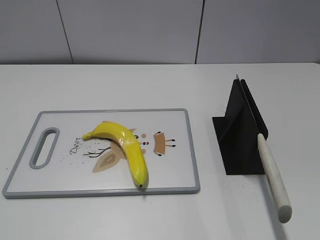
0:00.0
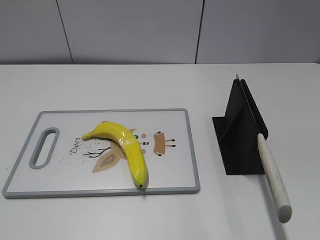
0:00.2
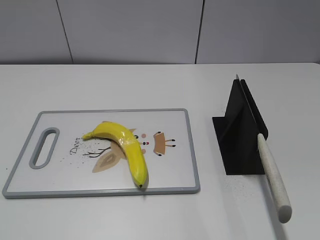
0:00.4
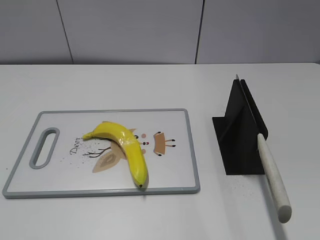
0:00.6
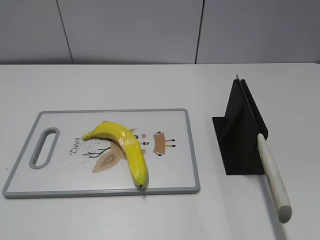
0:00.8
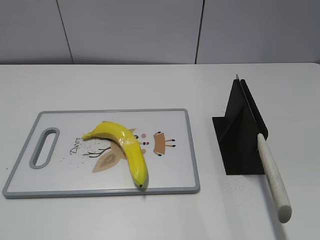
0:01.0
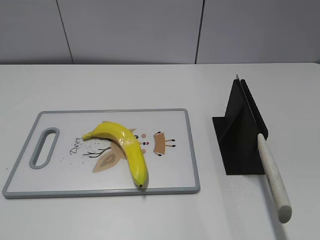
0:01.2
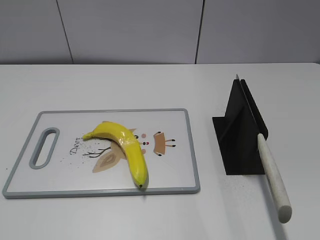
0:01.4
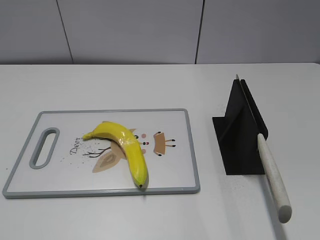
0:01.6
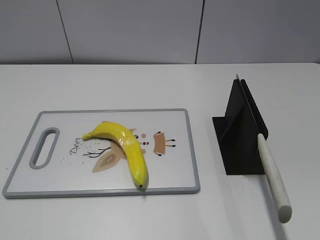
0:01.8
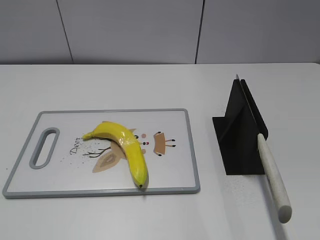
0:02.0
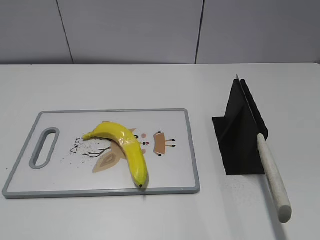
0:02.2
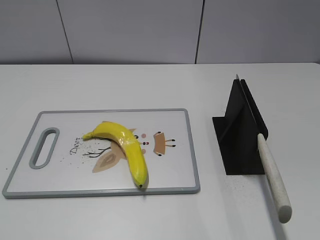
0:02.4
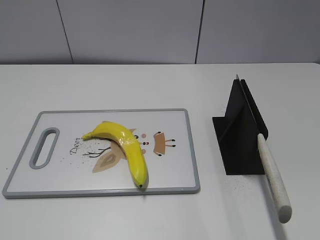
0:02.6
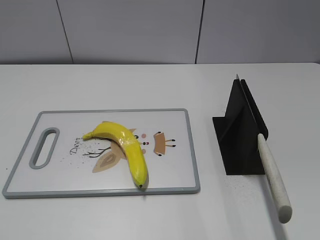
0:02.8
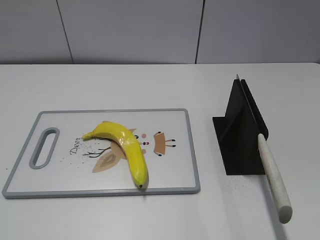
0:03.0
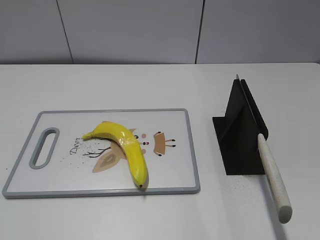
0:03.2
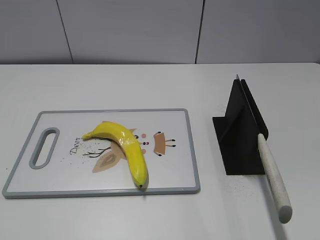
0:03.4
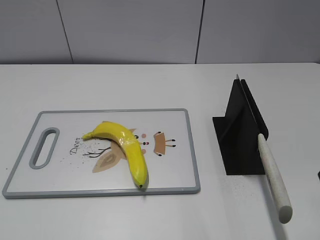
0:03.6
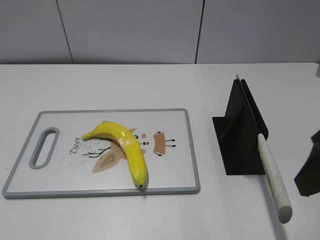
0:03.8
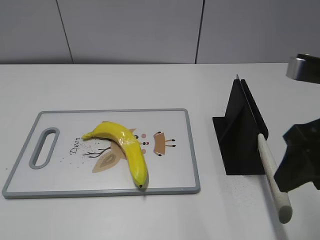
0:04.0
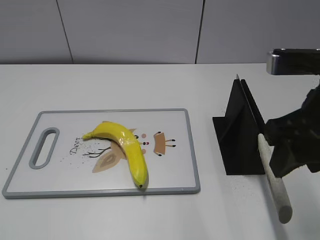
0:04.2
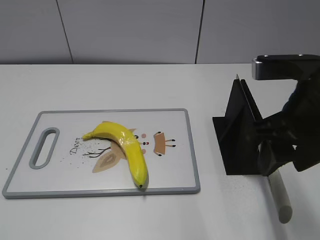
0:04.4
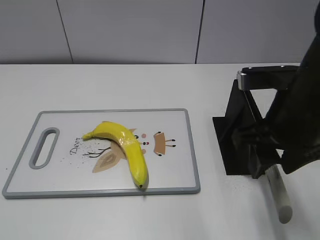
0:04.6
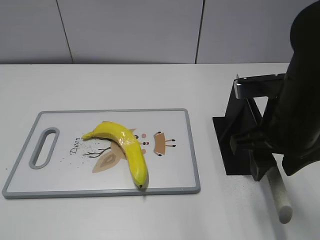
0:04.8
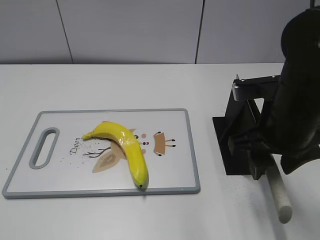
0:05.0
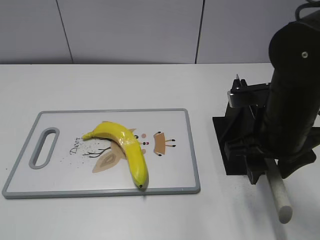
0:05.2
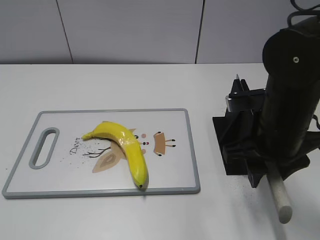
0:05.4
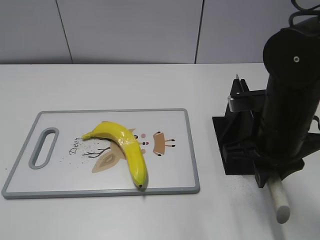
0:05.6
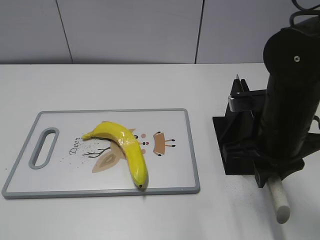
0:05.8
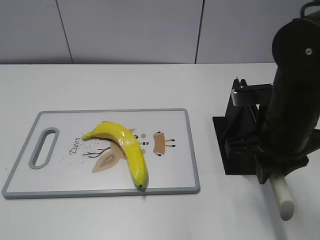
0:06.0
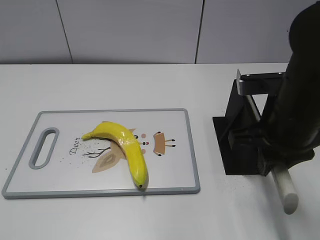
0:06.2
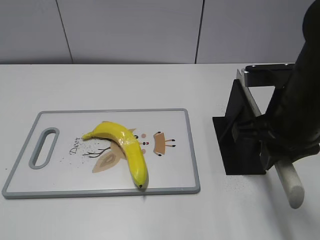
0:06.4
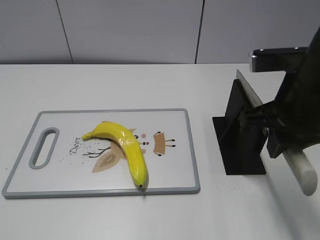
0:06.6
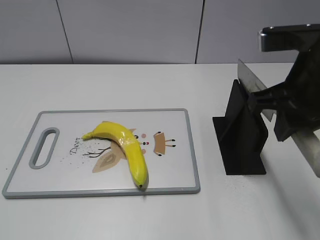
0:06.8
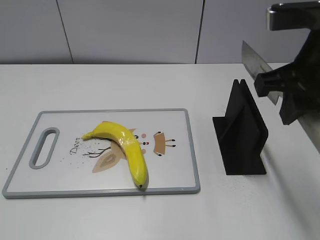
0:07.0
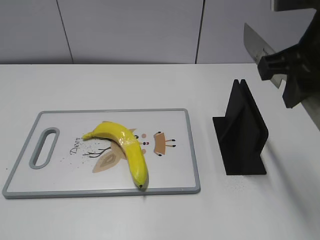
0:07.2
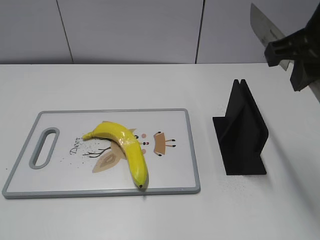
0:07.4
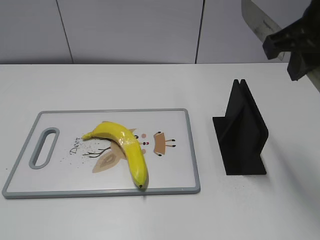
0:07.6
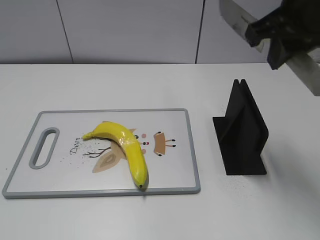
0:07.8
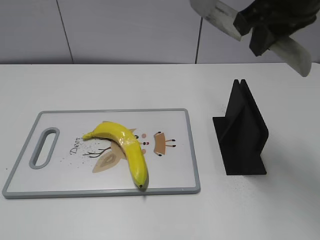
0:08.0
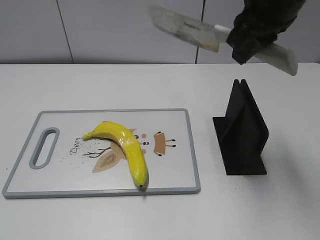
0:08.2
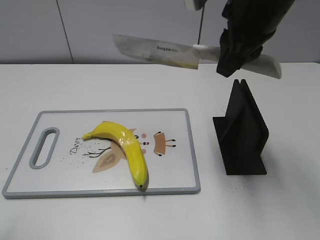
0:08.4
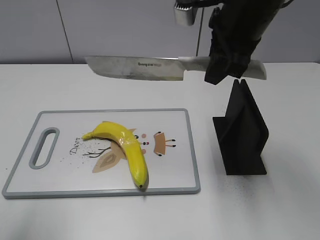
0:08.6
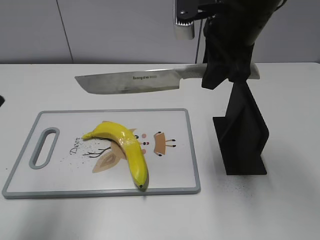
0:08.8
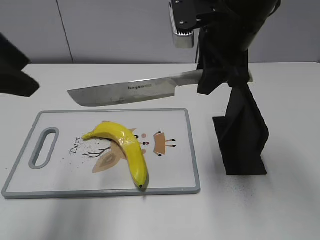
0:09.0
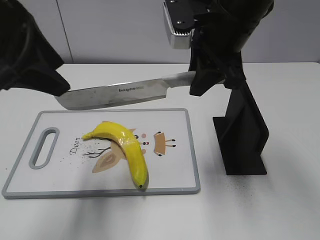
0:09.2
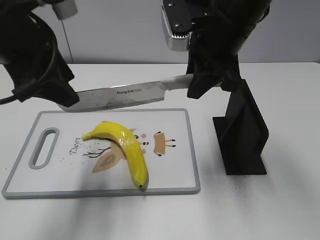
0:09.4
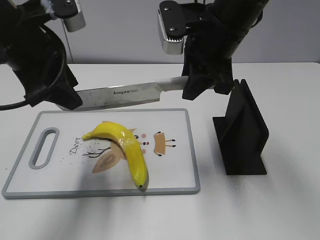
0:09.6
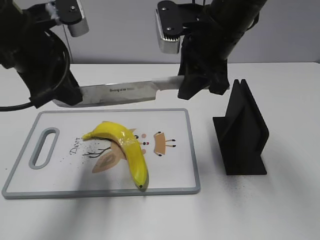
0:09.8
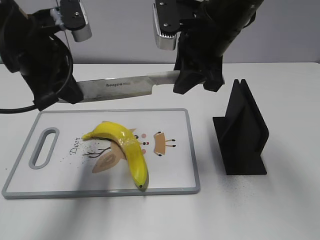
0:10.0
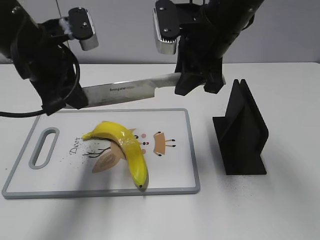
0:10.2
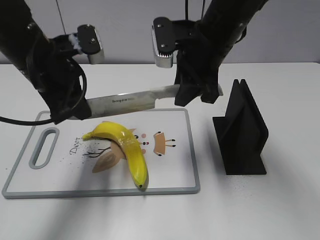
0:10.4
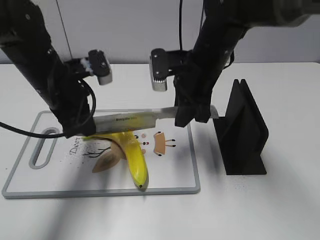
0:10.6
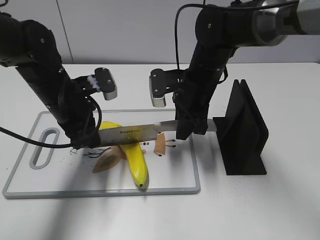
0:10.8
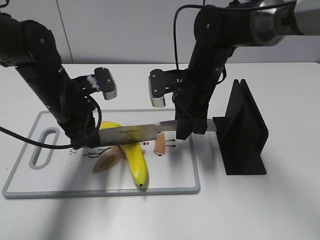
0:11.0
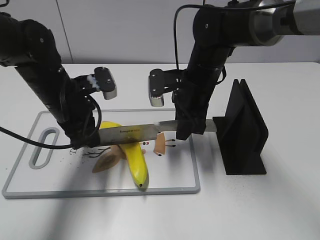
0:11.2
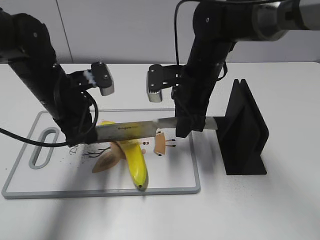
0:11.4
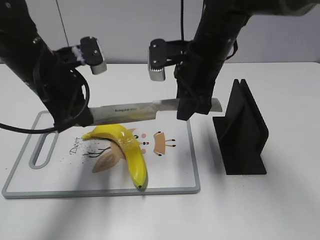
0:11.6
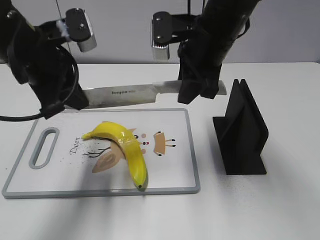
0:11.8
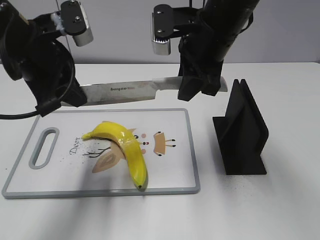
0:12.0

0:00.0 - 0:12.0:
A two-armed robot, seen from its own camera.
Task of the whole recording: cut plastic banana.
Step, 0:00.0 - 0:07.2: Grab the knife handle with your right hand.
0:03.0 - 0:04.4: The right gripper goes approximately 15 cm forward and to the left.
0:04.4 - 0:06.0: The right gripper goes about 5 cm downward, and closes.
0:06.0 - 0:07.6: The right gripper heads upward, covering some 15 cm.
0:07.6 - 0:09.0: The right gripper travels forward and to the left by approximately 10 cm. Meanwhile the left gripper travels forward by some 20 cm.
0:09.0 - 0:10.4: The right gripper ends up roughly 5 cm from where it was; the left gripper goes roughly 15 cm downward, forward and to the right, and closes up.
0:10.4 - 0:12.0: The left gripper travels downward and back again, some 10 cm each way. The right gripper reaches approximately 10 cm downward, then returns.

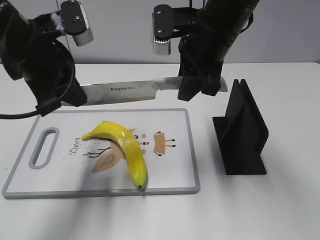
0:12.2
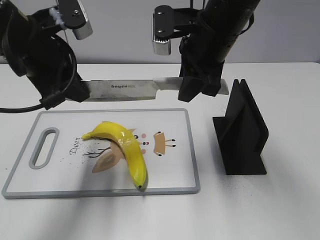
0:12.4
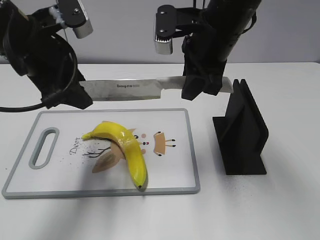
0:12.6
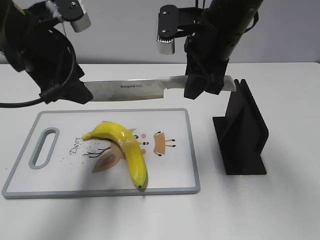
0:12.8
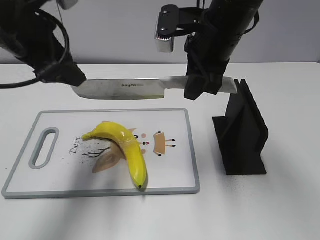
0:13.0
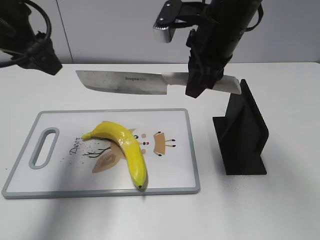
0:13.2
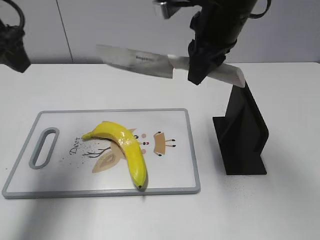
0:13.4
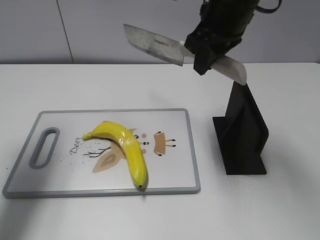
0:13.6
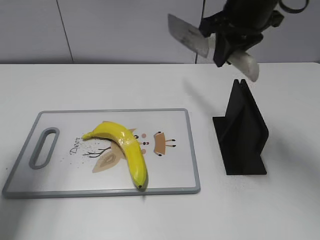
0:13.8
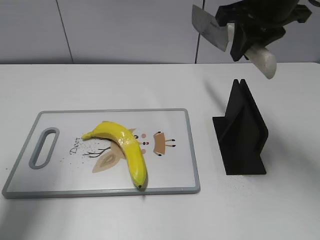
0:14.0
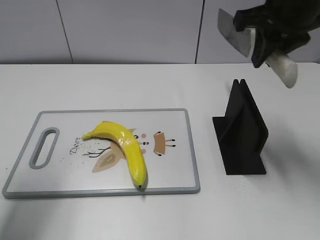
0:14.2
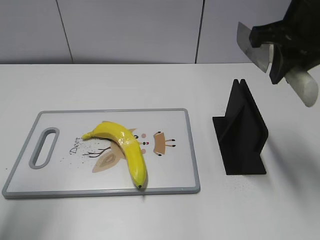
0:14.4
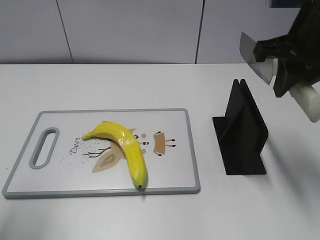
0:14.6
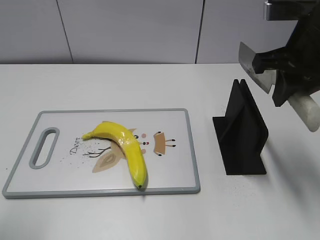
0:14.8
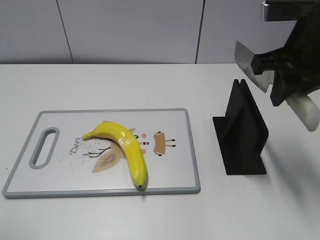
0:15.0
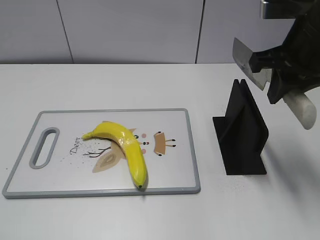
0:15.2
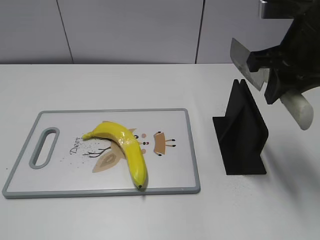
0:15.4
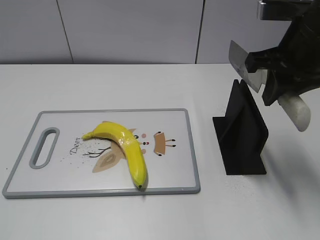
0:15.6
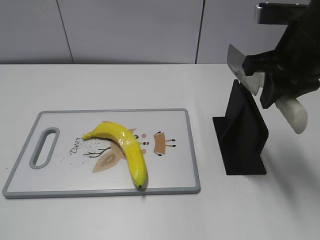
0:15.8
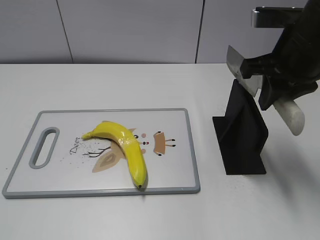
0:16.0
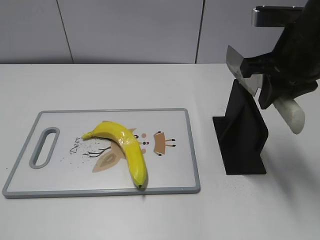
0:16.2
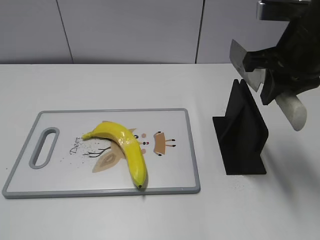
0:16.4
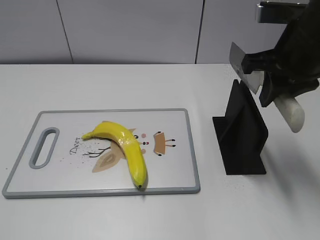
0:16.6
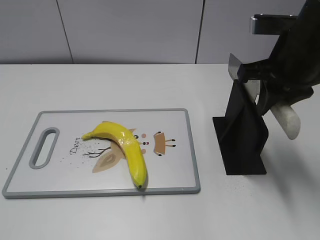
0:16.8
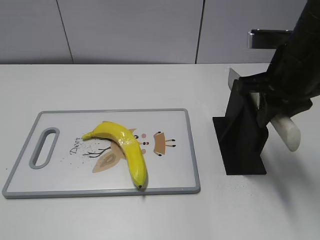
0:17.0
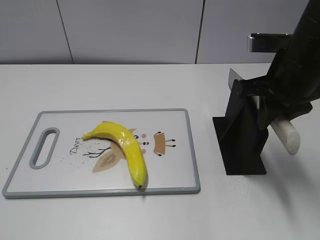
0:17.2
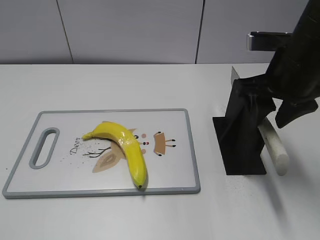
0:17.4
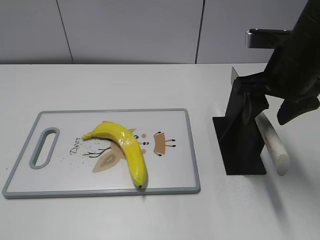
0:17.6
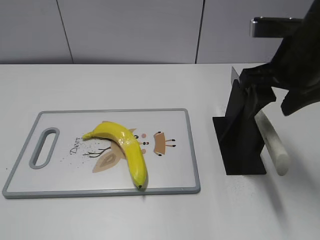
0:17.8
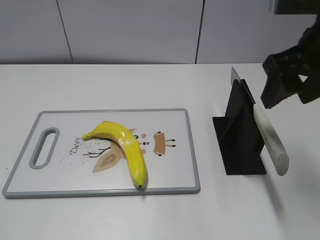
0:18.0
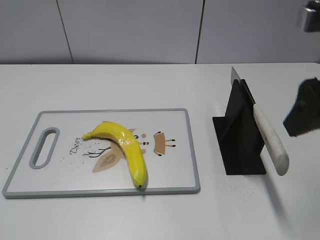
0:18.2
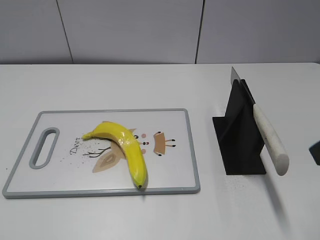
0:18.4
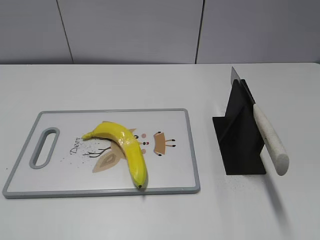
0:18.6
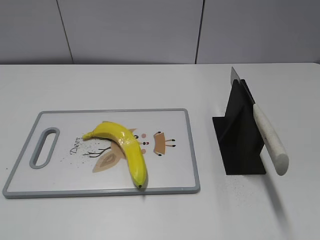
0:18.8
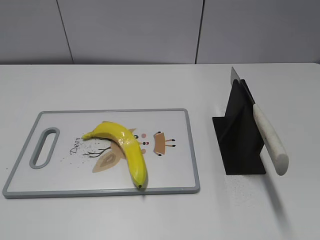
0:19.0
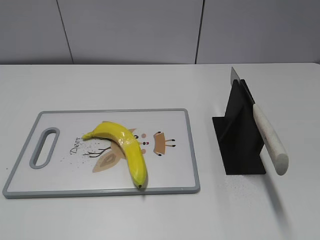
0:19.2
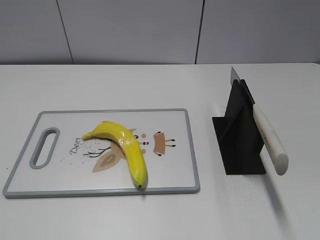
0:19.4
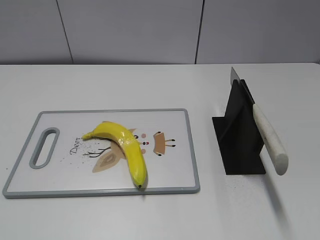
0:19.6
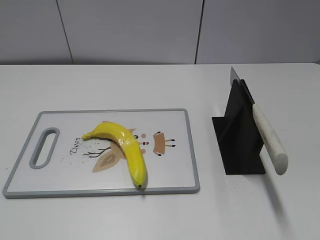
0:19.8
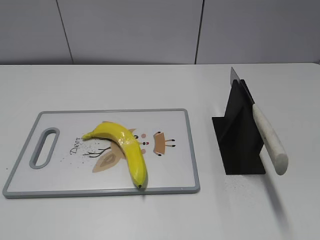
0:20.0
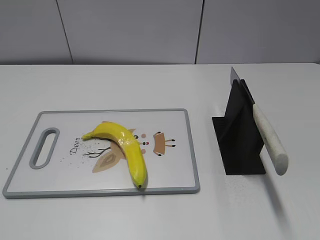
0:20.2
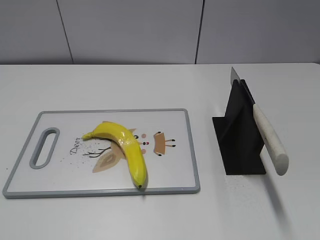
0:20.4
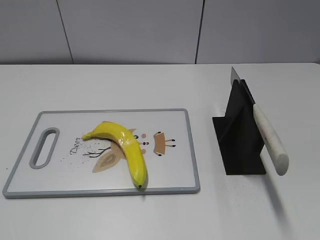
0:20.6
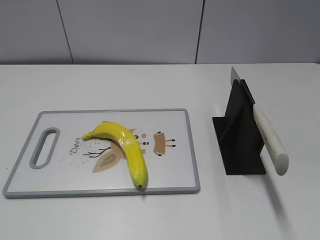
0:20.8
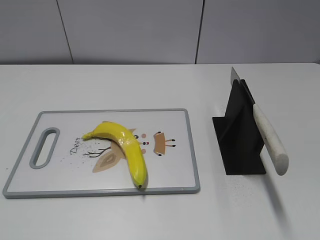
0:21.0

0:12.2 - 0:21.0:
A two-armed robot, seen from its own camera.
Task of the whole recording: cut plastic banana.
Step, 0:12.8 - 0:13.6: Cut the banana with your right hand.
Step, 0:13.8 - 0:15.6: Lift the knife with your right hand.
Step, 0:15.8 - 0:21.0: Place the knife on the storage rack with your right hand.
0:12.2 - 0:13.6: The left gripper moves to the left, about 10 cm, and opens.
0:13.6 - 0:15.2: The right gripper travels to the right and backward by roughly 10 cm; the left gripper shifts roughly 25 cm backward.
0:16.6 - 0:18.0: The right gripper opens.
0:18.0 - 0:19.6: The right gripper is displaced backward by about 25 cm.
